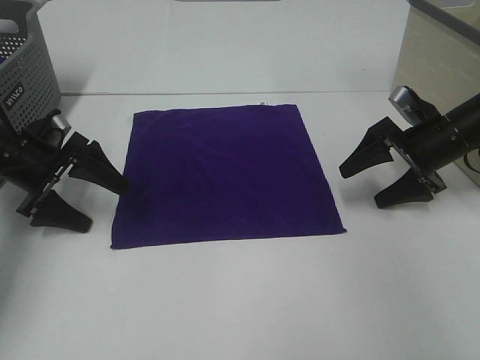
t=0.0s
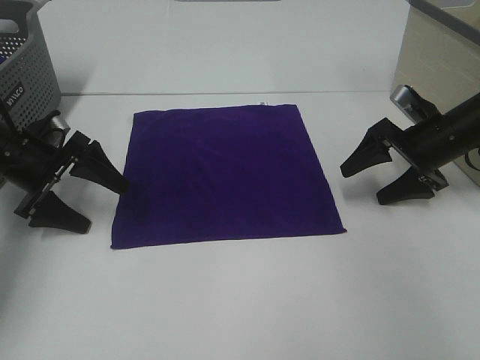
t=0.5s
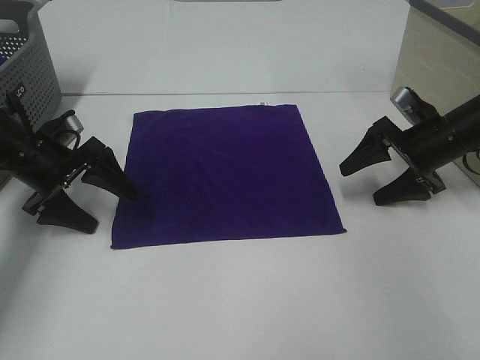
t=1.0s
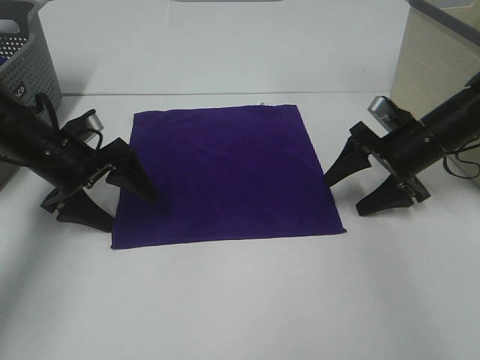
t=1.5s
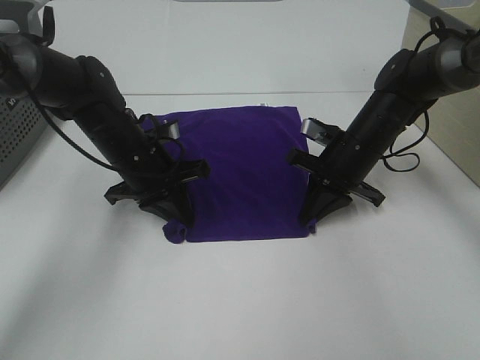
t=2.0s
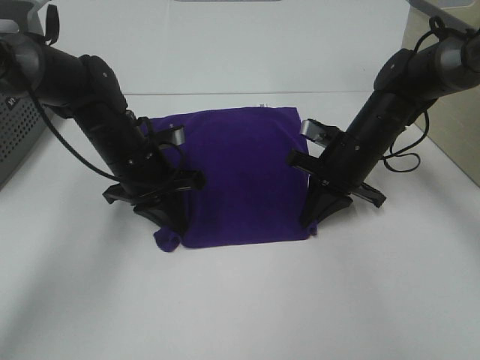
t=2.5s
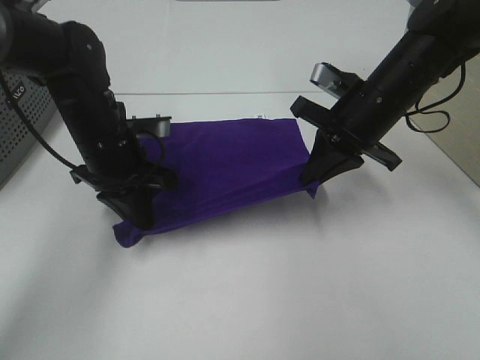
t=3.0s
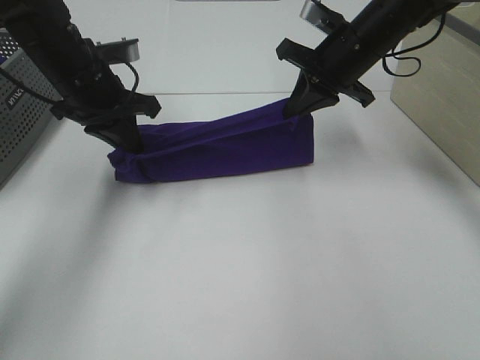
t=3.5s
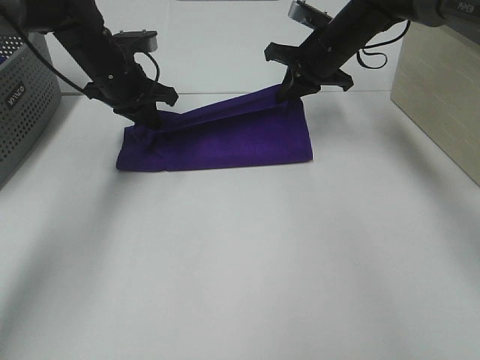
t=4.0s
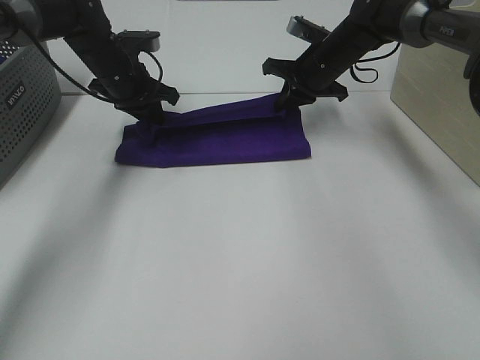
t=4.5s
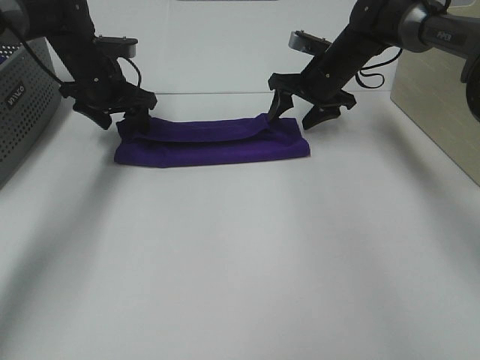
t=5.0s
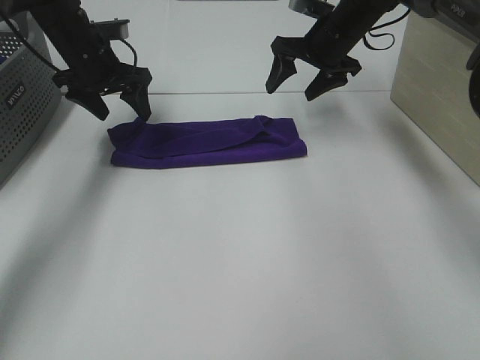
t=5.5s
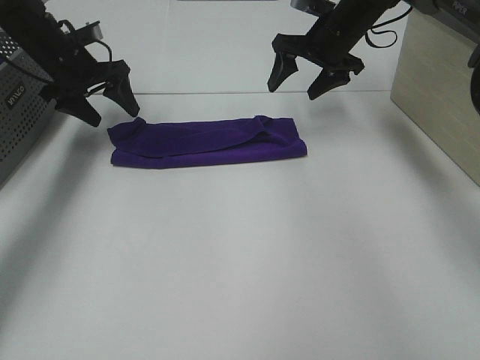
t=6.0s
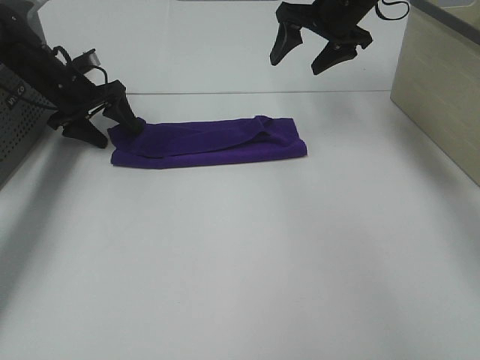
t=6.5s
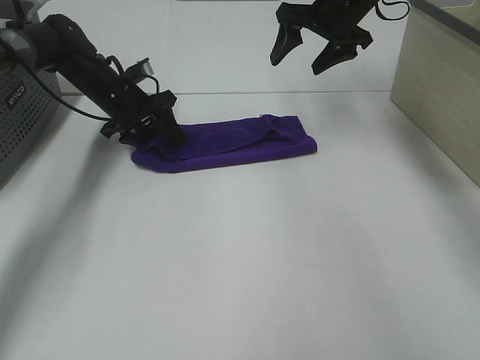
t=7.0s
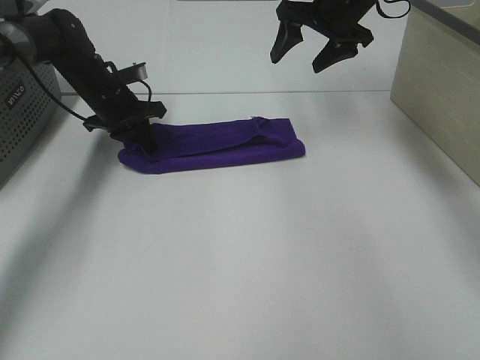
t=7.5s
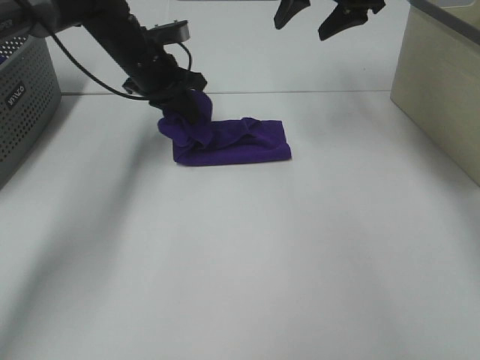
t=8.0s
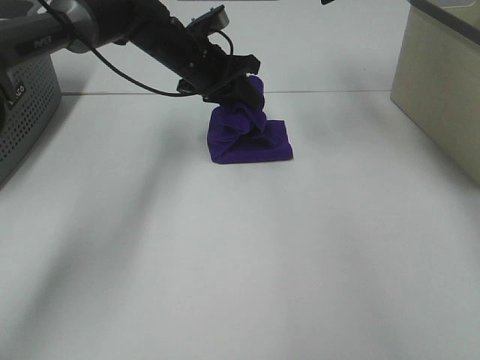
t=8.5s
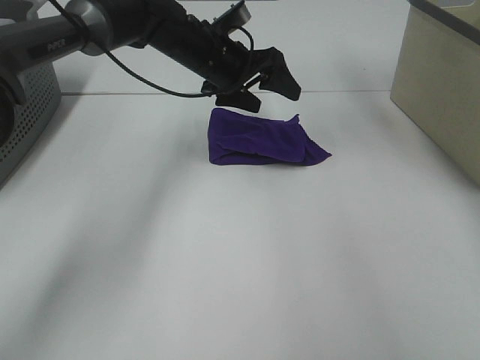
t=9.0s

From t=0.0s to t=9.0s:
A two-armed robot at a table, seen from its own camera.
Task of the whole recording: Fold towels.
Step, from t=2.0s to t=4.5s: Left hand: fold the purple towel up.
Step, from t=2.0s to t=4.5s: Right hand: fold the purple towel up.
Step, from t=5.0s to t=8.5s: Left hand: fold the purple towel from left to right.
From t=0.0s to t=2.0s: The right gripper is displaced to the left by approximately 10 cm, and closes, while the left gripper heads to the right, covering some 15 cm, and closes its fingers.
From t=2.0s to t=4.5s: The two grippers go roughly 15 cm forward and upward.
From t=4.5s to t=7.0s: The left gripper shifts roughly 5 cm downward, and moves about 10 cm to the left and comes back. Meanwhile the right gripper heads upward, covering roughly 10 cm, and opens.
From t=7.0s to t=9.0s: The right gripper shifts some 15 cm upward. The left gripper shifts approximately 20 cm to the right and upward, and closes, then opens again.

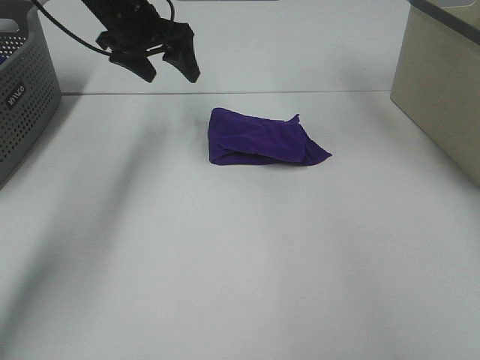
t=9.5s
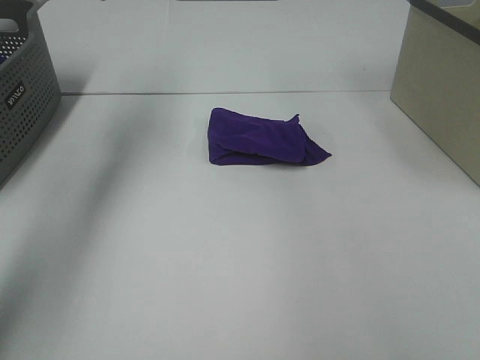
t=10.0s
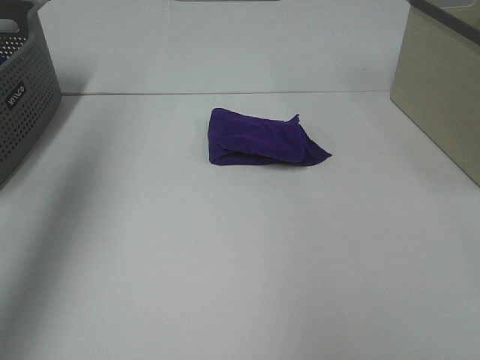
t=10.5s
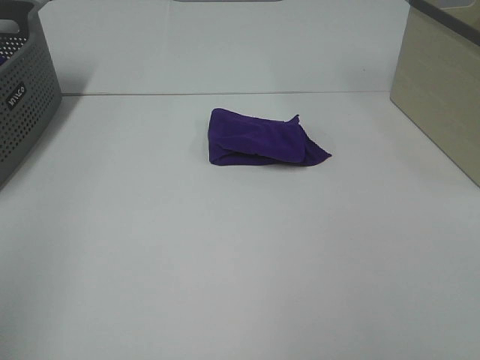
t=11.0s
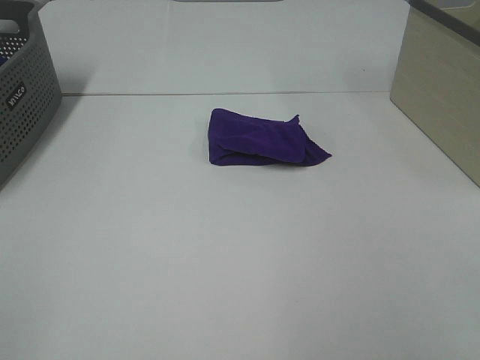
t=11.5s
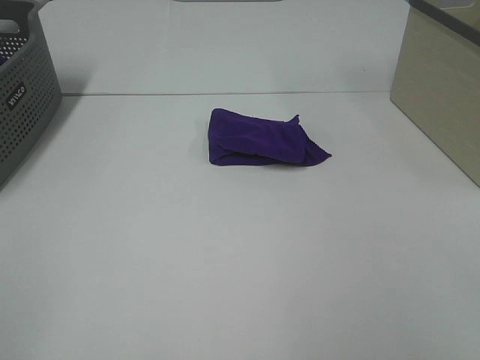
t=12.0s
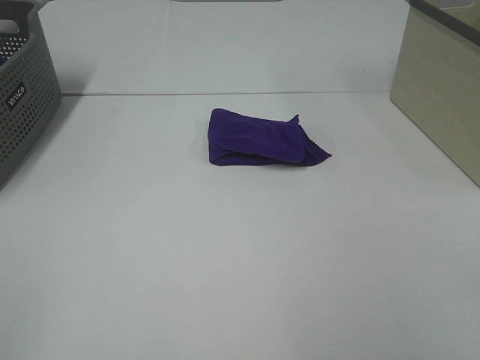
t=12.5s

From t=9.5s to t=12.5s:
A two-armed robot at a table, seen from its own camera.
Task of the whole recording: Fold towels.
From t=9.5s to t=11.0s: Both grippers move backward, roughly 50 cm.
